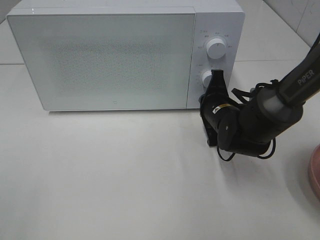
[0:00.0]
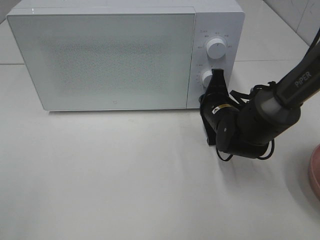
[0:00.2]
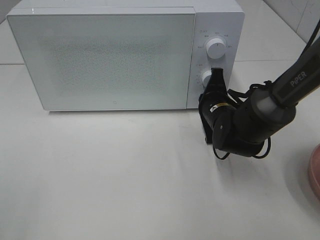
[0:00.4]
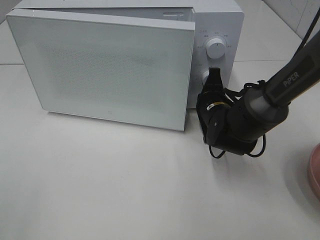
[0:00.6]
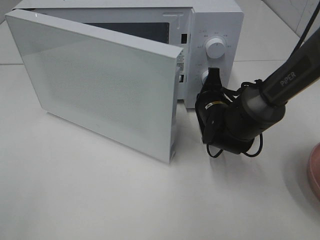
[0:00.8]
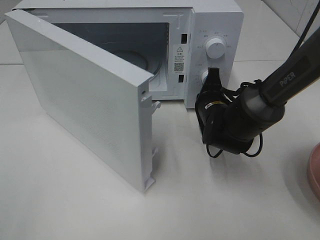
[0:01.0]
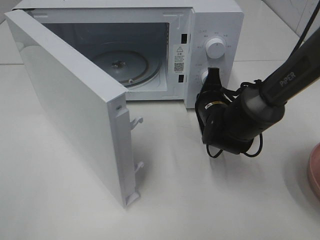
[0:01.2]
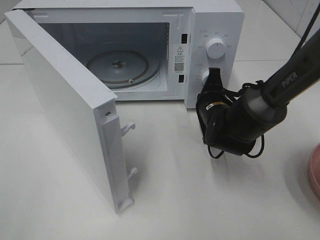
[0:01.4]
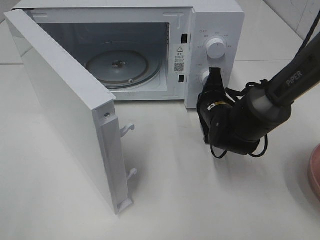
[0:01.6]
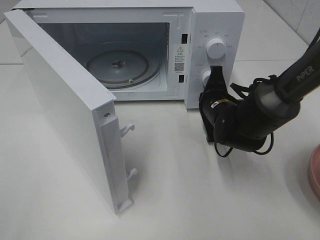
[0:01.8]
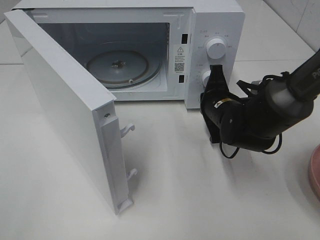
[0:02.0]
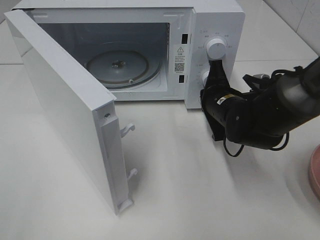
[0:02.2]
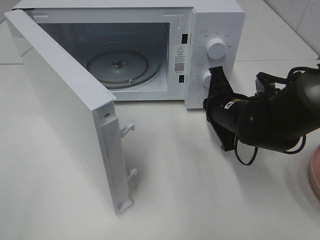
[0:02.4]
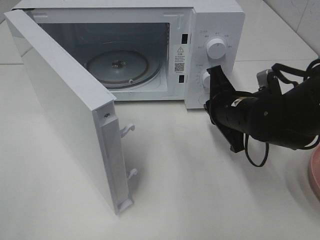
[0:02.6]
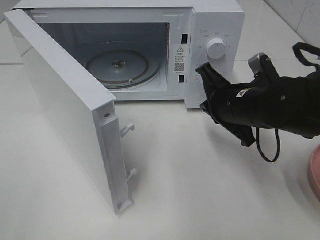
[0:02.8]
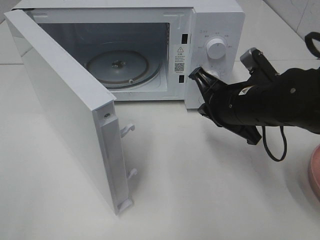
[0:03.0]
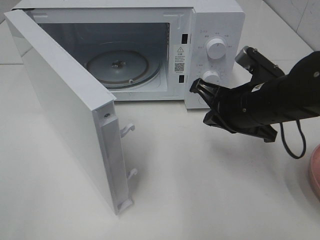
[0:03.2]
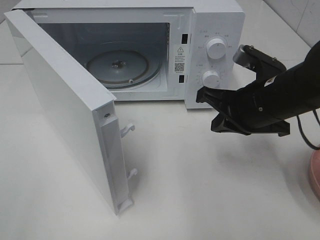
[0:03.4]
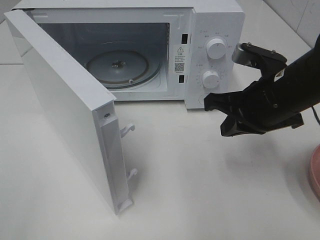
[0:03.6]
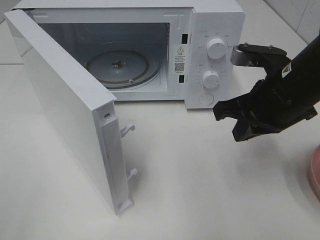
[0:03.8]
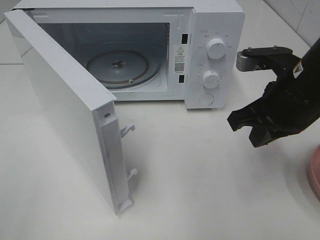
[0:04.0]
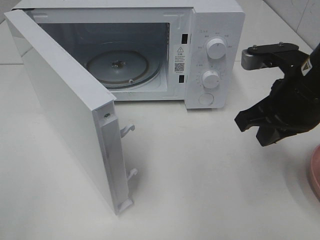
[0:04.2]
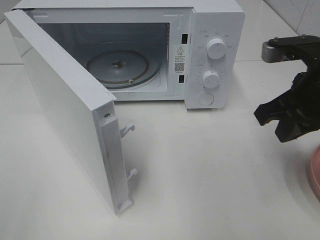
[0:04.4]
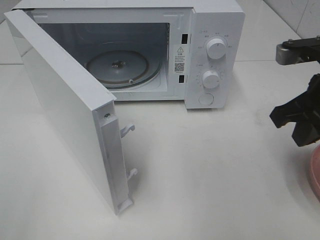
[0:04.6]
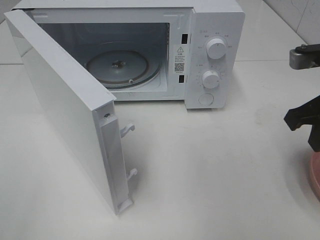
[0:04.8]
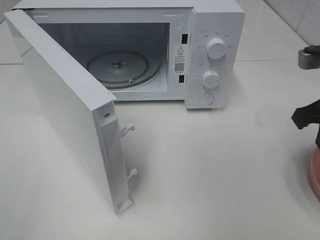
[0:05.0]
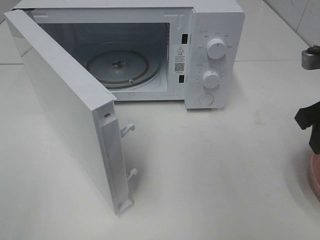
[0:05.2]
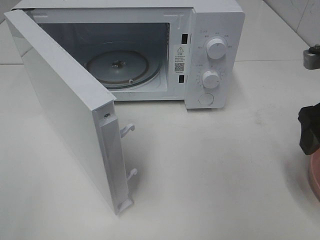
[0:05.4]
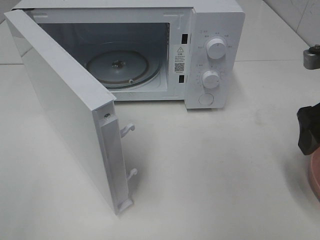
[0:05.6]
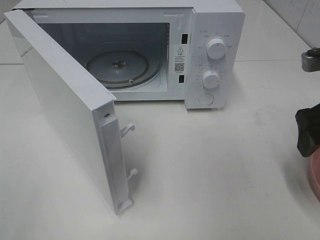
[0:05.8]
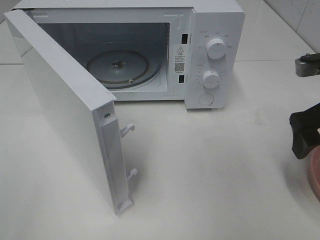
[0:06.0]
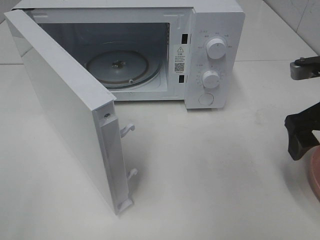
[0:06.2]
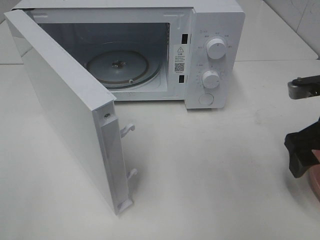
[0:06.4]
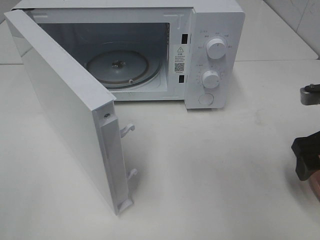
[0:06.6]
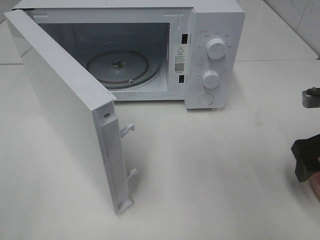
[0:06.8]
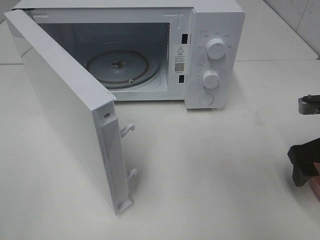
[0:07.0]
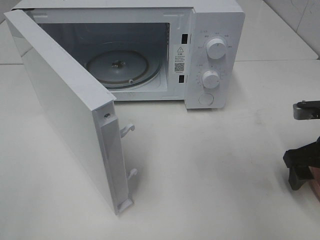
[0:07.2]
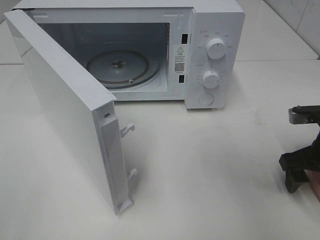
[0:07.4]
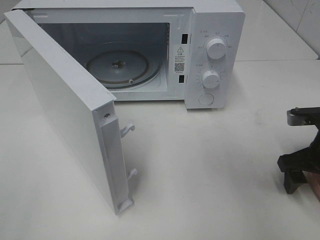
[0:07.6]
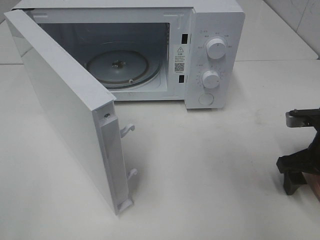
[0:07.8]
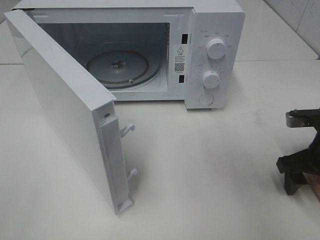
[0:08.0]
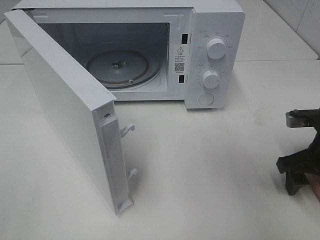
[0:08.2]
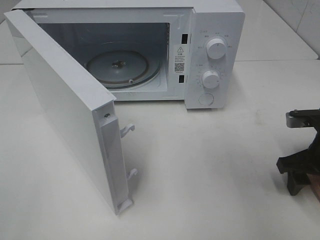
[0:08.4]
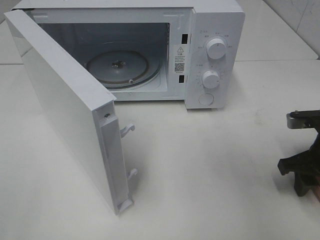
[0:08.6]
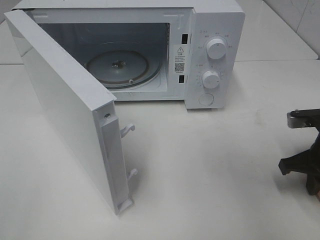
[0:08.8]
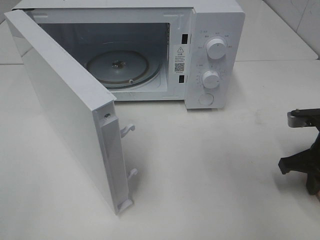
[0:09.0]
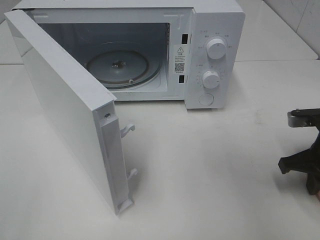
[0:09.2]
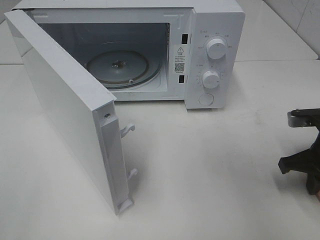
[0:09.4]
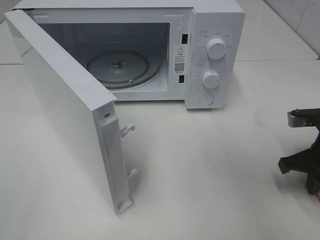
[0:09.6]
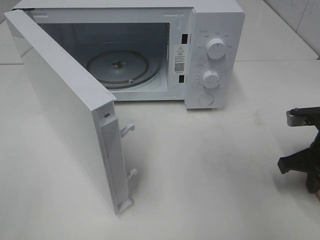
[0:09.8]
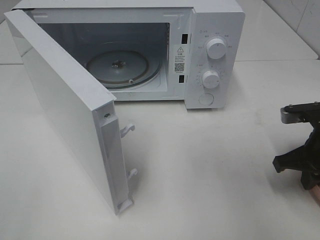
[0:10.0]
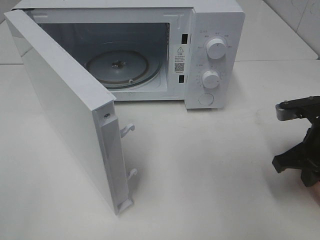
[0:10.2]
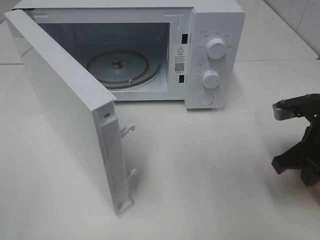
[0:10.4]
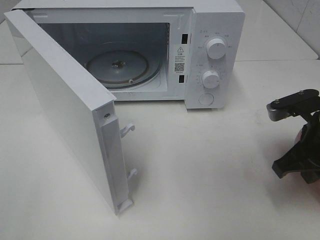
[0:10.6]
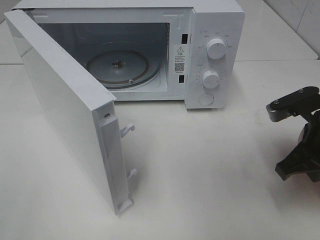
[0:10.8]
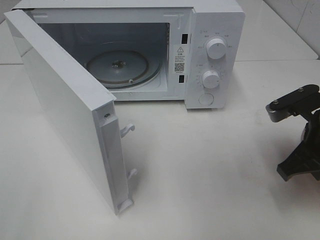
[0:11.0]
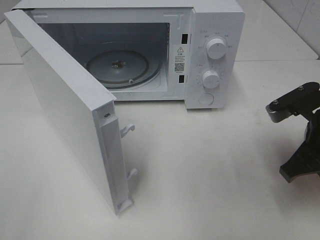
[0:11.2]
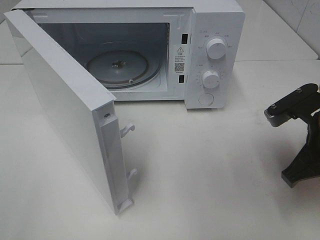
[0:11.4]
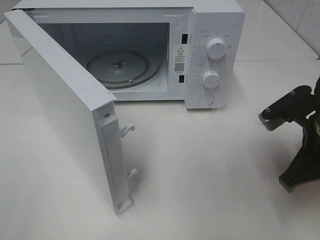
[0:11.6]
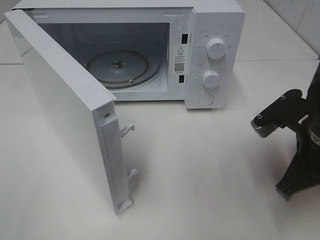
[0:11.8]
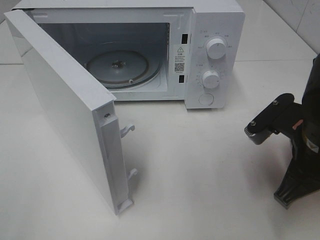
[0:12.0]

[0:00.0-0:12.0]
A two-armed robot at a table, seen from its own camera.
Task of the whole recording: Heat the burger.
Step, 0:00.0 to 0:02.0: Right hand: press the switch.
Step, 0:02.2 to 0:08.8: Right hand: grab the plate with the hamburger.
0:01.6 to 0:03.0: The right gripper heads upward and backward, covering about 10 cm.
0:03.0 to 0:04.4: The right gripper travels upward and to the right by approximately 10 cm.
0:04.4 to 0:06.0: The right gripper travels to the right by about 5 cm, and opens up.
0:06.0 to 0:07.6: The right gripper is displaced downward by some 10 cm.
0:07.6 to 0:09.0: The right gripper closes up.
0:09.0 to 0:10.4: The right gripper changes place by roughly 5 cm.
0:10.4 to 0:12.0: The right gripper goes roughly 5 cm to the left.

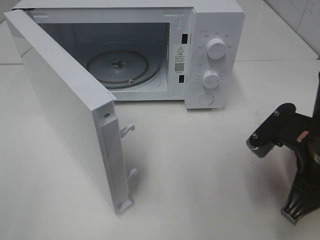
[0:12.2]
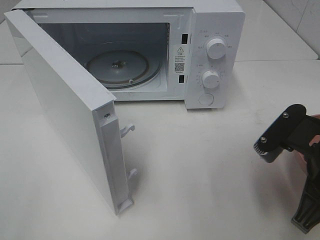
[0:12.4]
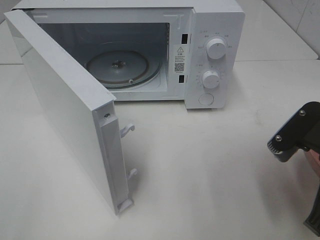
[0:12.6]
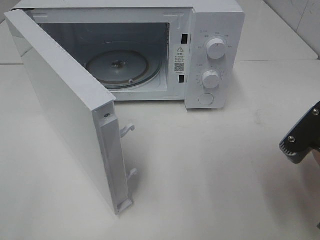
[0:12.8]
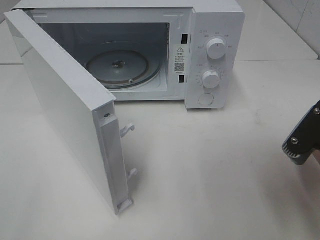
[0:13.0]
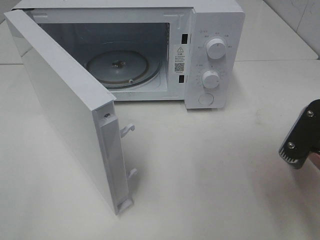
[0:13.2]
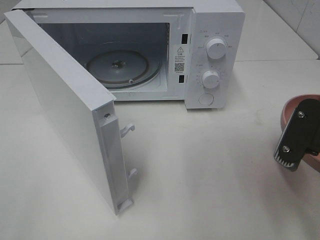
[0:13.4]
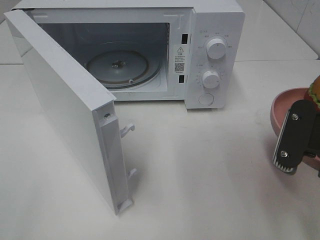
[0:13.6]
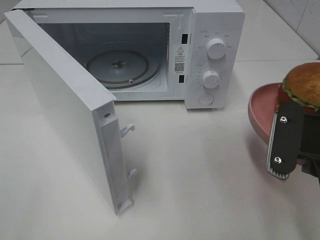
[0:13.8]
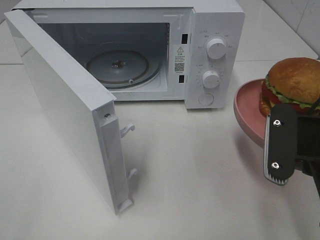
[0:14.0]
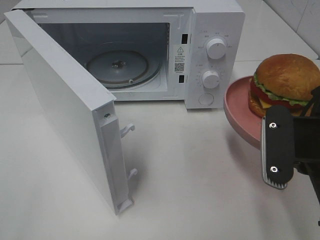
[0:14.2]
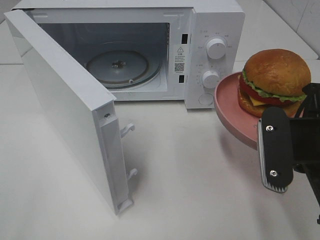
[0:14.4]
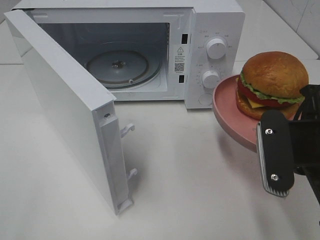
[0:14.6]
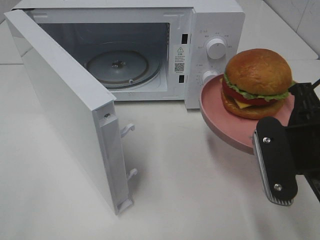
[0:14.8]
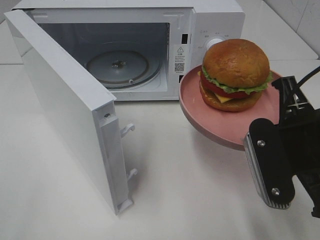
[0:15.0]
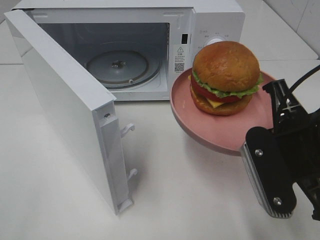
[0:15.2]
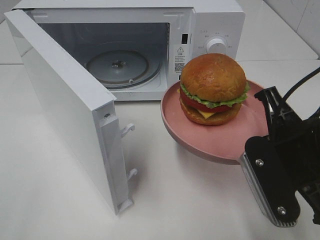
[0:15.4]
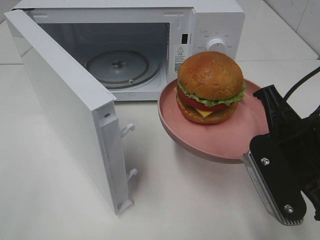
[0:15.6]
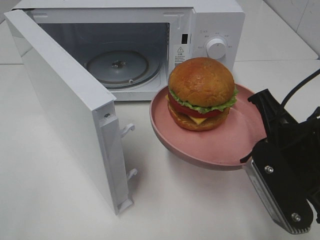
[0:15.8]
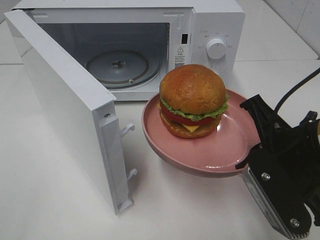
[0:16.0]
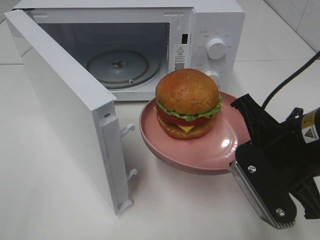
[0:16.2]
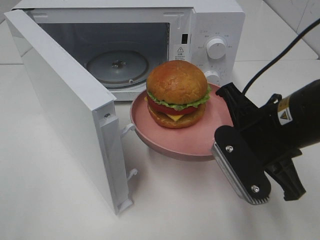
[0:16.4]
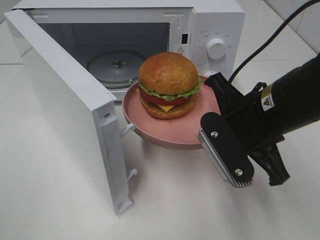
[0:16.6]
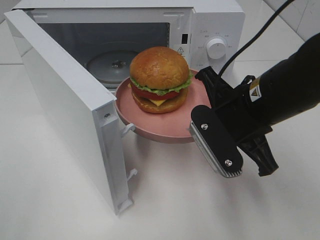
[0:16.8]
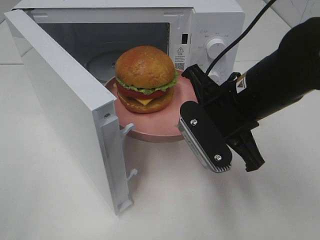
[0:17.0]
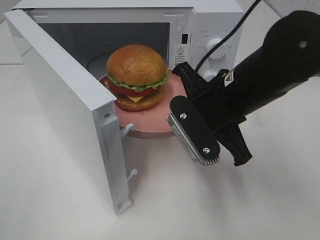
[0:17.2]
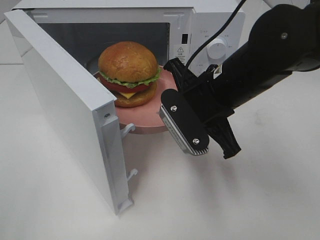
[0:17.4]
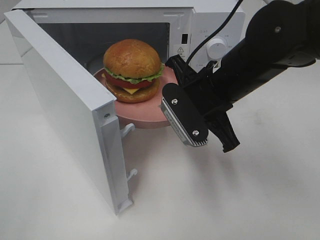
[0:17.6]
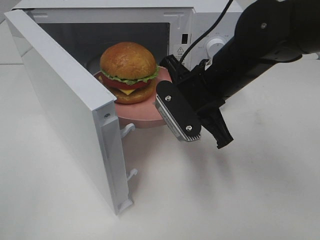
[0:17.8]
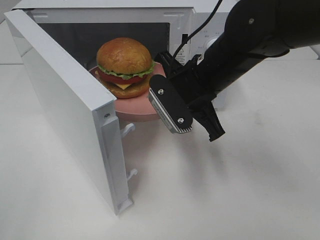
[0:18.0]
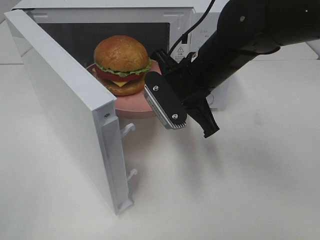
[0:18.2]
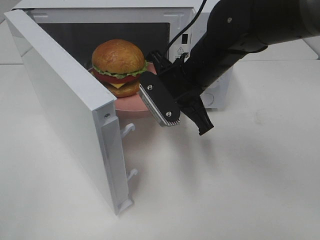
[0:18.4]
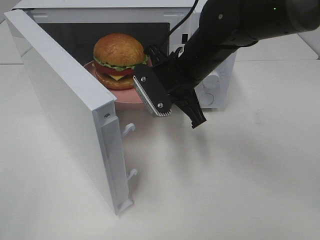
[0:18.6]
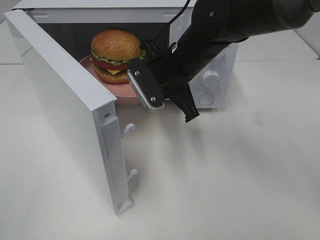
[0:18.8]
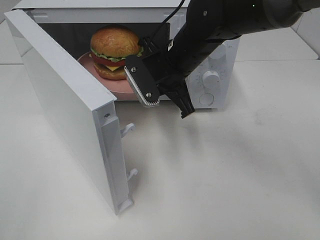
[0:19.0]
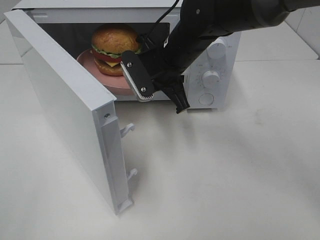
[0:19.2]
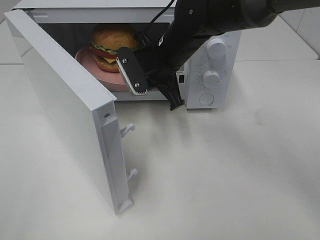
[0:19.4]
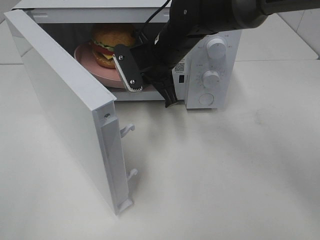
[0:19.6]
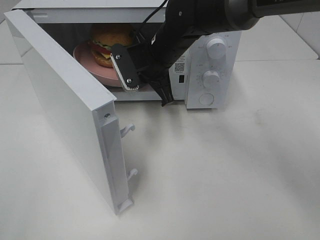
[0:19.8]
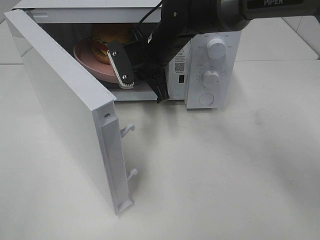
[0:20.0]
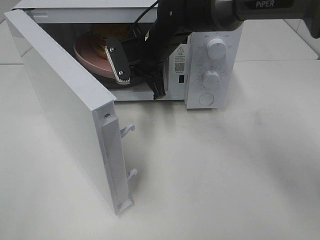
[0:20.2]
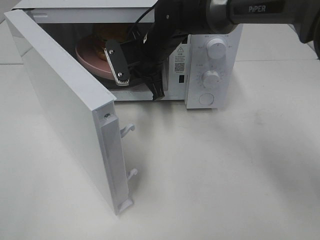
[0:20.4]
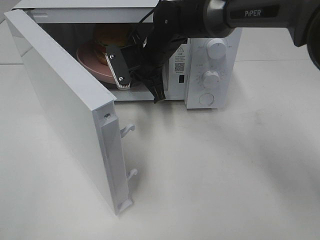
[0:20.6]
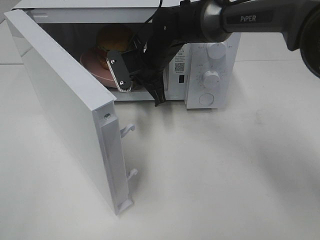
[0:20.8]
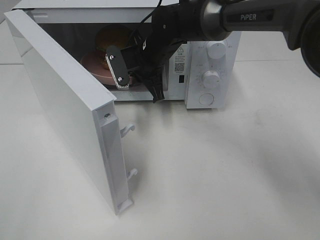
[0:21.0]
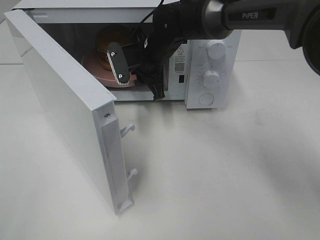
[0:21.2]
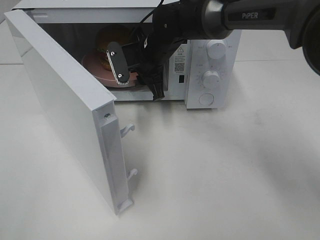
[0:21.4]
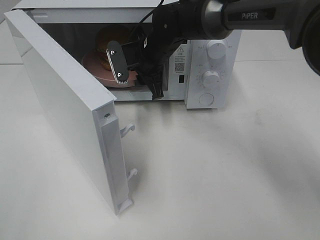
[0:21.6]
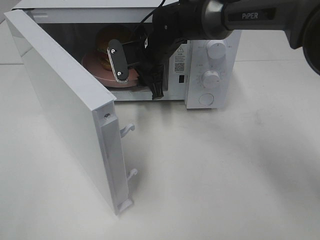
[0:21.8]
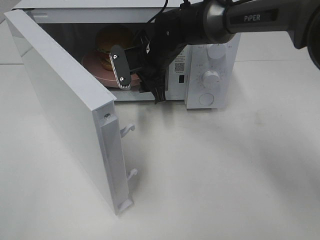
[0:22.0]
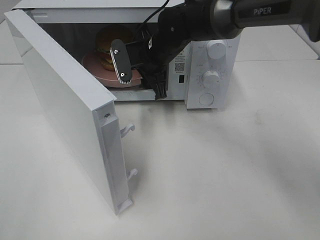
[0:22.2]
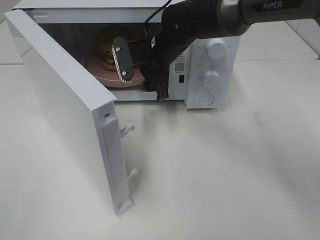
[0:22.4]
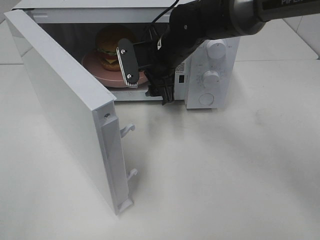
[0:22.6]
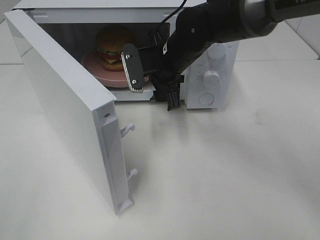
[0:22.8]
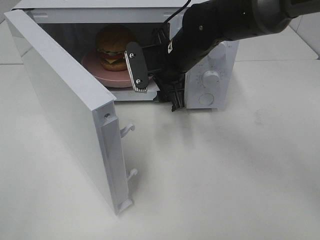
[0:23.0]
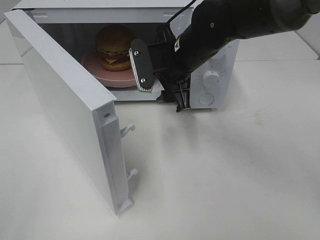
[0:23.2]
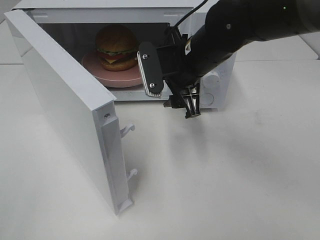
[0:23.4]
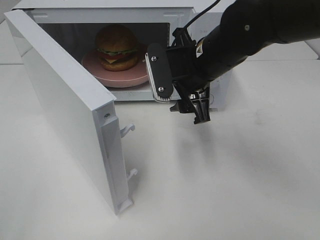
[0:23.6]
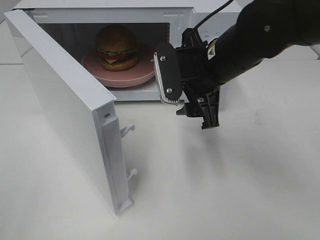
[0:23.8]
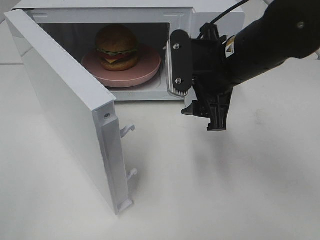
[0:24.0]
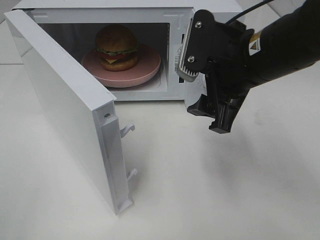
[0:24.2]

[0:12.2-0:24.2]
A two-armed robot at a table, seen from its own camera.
Task of the whole recording: Heat the burger.
Step, 0:12.2 to 0:21.2: Right hand: place the plate in the microwave.
0:15.2 to 0:16.6: The right gripper moves forward, roughly 5 cm.
0:16.6 to 0:18.2: The right gripper goes roughly 10 cm forward and to the left.
0:18.2 to 0:19.8: The right gripper is displaced forward and to the left by some 10 cm.
0:19.8 to 0:21.2: There are only small adjustments of the grippers.
0:21.2 to 0:22.6: The right gripper opens up.
0:22.6 to 0:24.2: The right gripper goes roughly 20 cm backward, to the right and upward.
